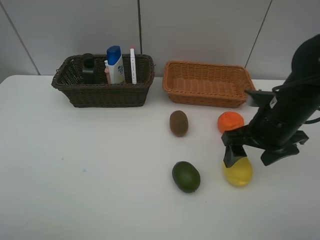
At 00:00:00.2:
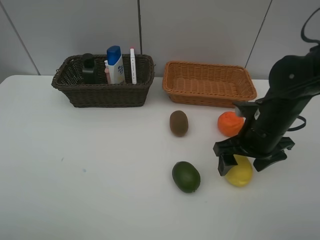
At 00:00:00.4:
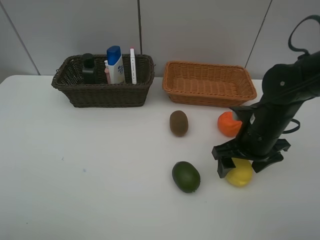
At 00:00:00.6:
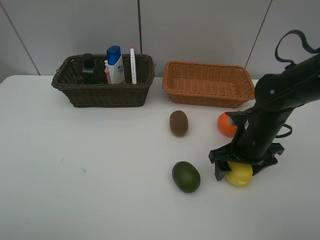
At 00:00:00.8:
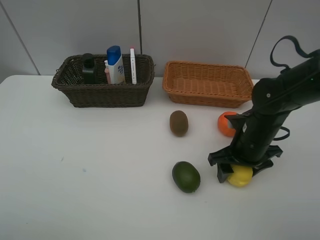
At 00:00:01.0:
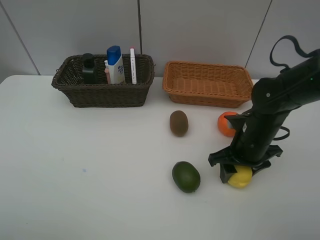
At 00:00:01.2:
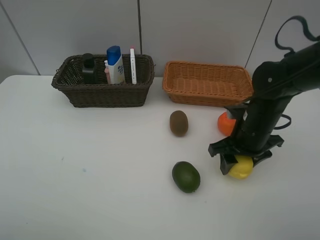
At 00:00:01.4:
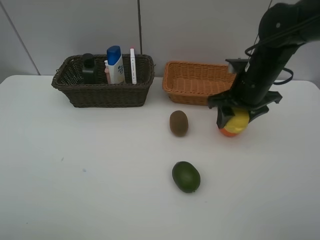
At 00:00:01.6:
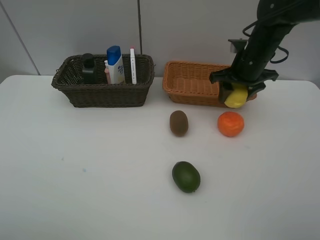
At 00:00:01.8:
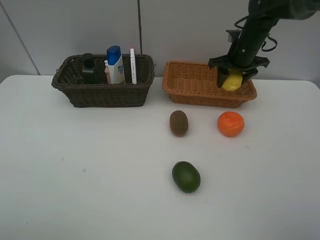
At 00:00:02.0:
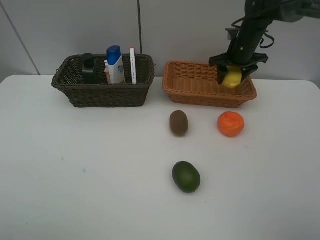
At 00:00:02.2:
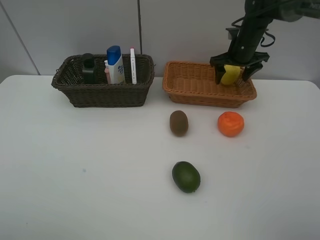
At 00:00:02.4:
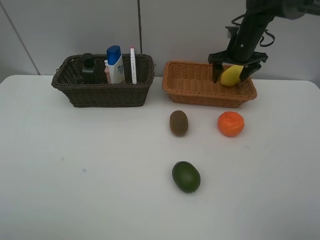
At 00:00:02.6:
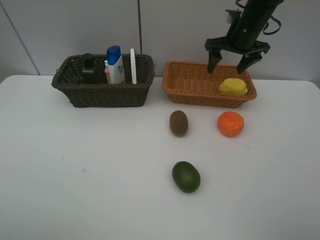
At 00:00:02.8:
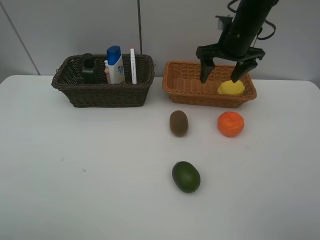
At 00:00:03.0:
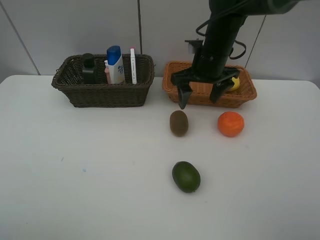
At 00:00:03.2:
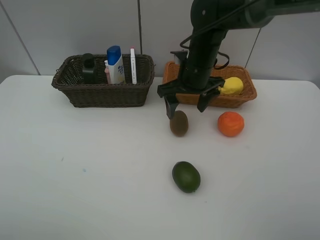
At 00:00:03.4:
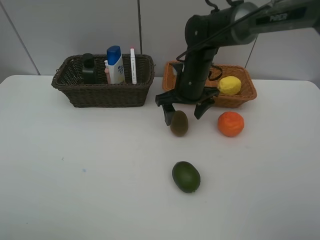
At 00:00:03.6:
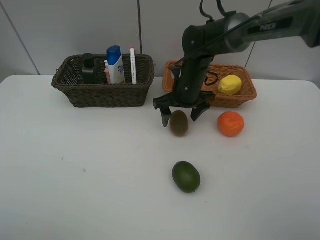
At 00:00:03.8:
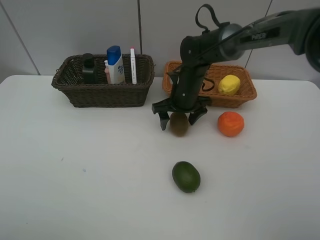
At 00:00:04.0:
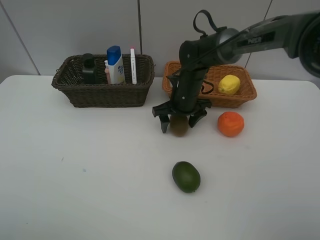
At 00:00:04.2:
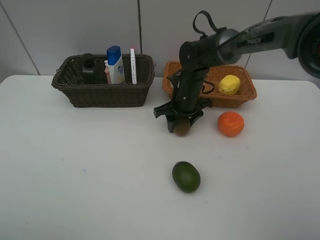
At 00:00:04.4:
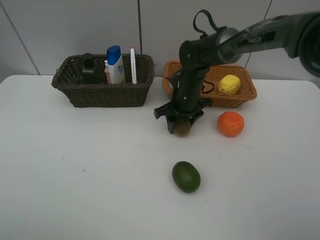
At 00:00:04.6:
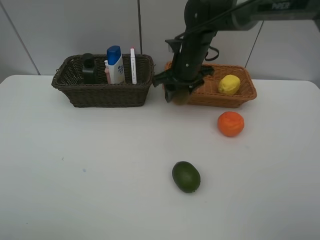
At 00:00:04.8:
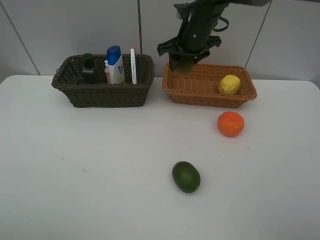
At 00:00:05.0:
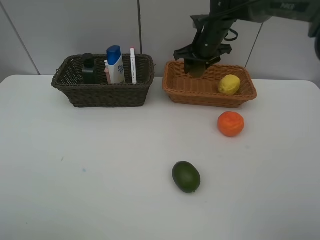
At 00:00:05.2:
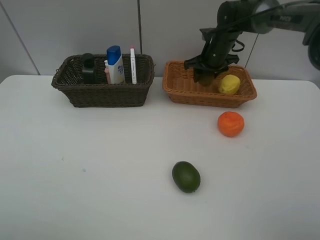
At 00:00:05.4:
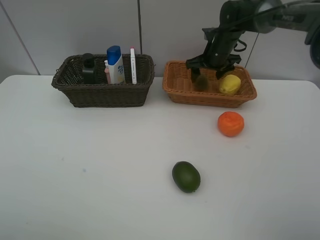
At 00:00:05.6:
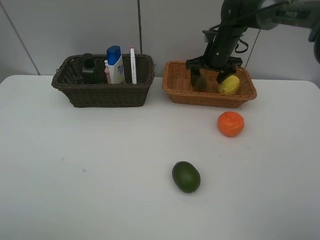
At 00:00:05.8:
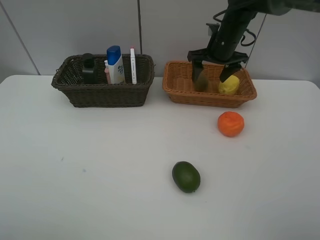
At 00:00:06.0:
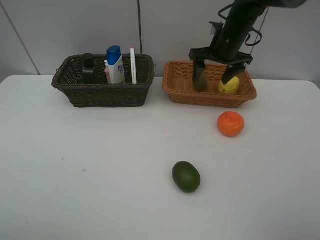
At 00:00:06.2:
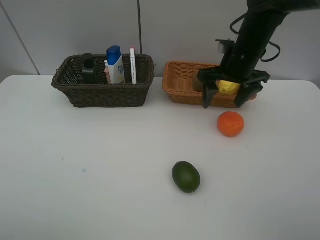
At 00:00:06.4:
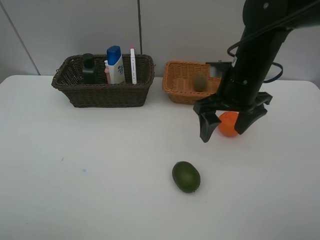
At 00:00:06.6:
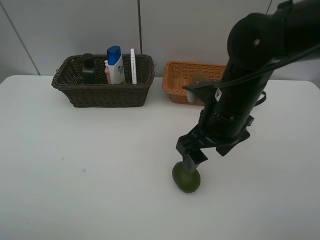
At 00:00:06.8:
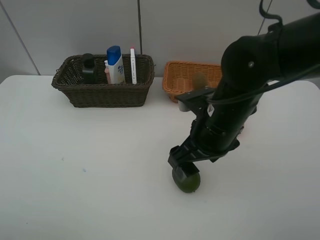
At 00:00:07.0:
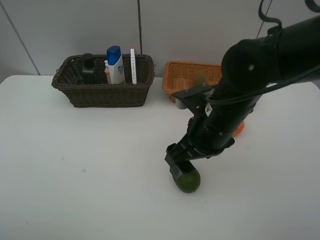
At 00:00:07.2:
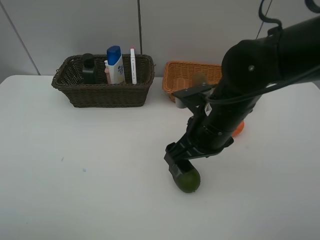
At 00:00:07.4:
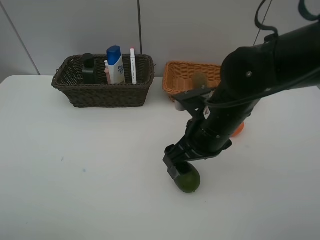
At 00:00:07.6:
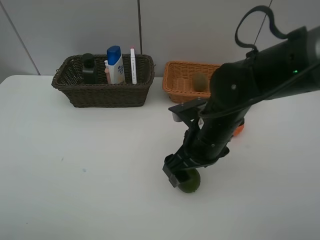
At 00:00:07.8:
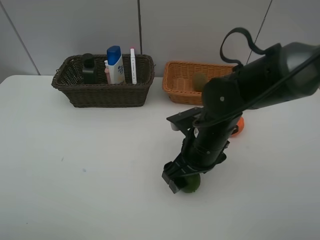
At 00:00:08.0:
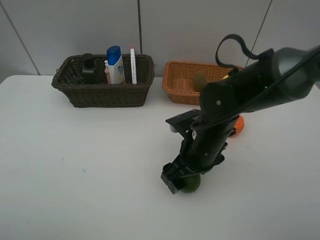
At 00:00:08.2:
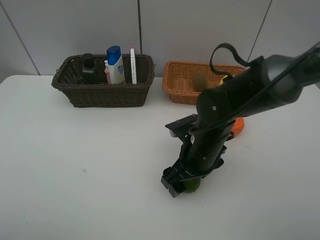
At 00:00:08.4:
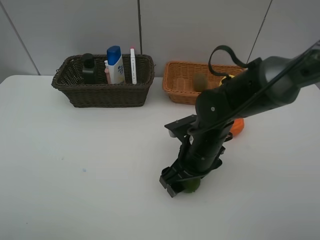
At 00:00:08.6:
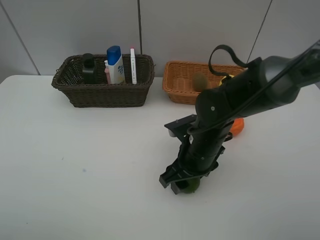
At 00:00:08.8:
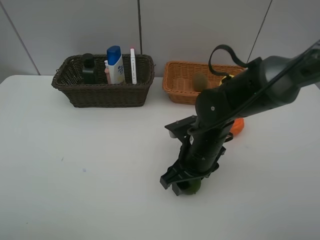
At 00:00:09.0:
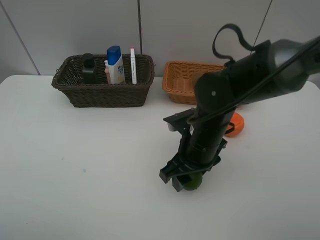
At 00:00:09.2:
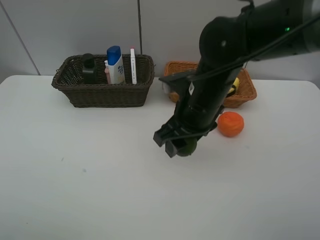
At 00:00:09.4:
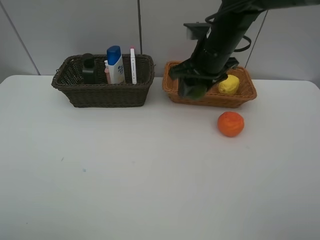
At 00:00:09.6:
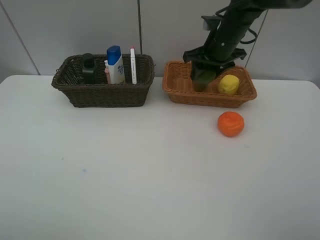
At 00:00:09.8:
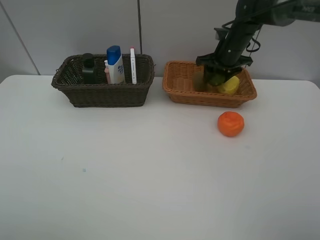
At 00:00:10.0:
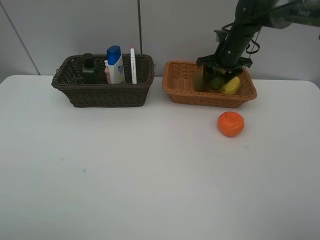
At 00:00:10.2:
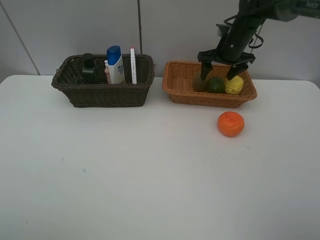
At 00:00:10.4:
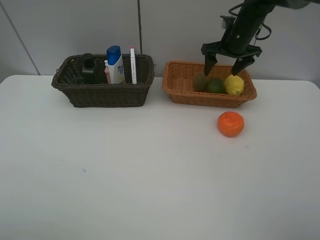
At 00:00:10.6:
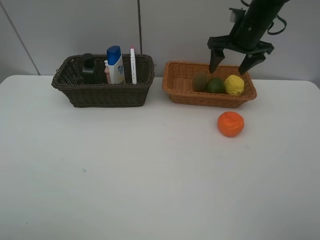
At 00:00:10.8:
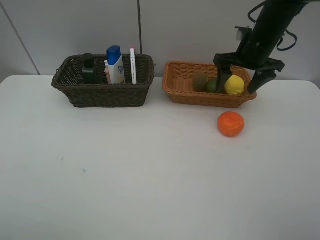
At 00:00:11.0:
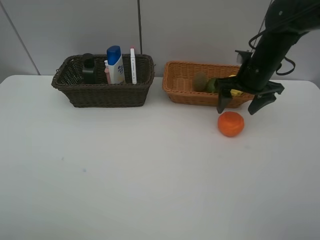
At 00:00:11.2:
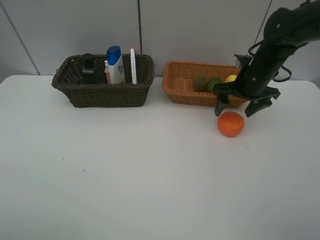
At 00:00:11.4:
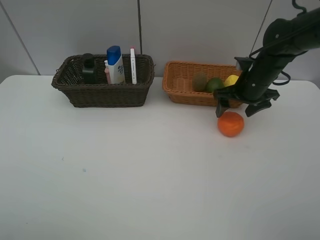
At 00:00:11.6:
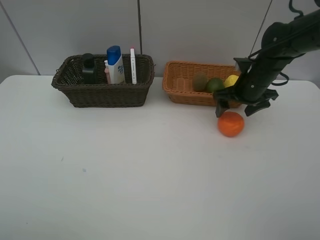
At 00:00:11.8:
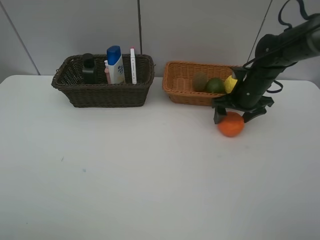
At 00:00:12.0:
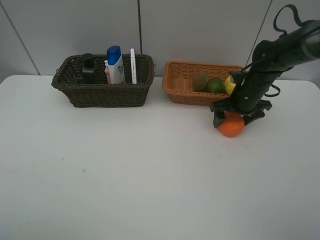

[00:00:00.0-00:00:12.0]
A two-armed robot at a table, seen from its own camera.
Task of the whole recording: Place multiple objects separately in different baskets.
Step, 00:00:01.4 to 00:00:02.4: Place the lemon in the light basket with right gripper.
Step, 00:00:02.6 to 00:00:04.4: Pick up kiwi with right gripper.
Step, 00:00:04.6 to 00:00:05.4: Place the kiwi in the light basket with right gripper.
Step, 00:00:05.6 to 00:00:09.0: Pick up the lime with right gripper.
Step, 00:00:09.2 to 00:00:10.2: Place the lime in the light basket with right gripper.
00:00:00.0 to 00:00:01.6: The right gripper travels forward by some 15 cm, and closes.
00:00:01.6 to 00:00:03.0: The right gripper shifts some 10 cm to the left, travels forward and back again, approximately 10 cm each way, and opens up.
00:00:03.0 to 00:00:04.4: The right gripper moves downward, roughly 10 cm, and closes.
00:00:04.4 to 00:00:06.0: The right gripper goes up and down, approximately 15 cm each way, reversing 2 times, and opens.
00:00:06.0 to 00:00:07.6: The right gripper goes about 20 cm backward.
00:00:07.6 to 00:00:09.0: The right gripper closes.
00:00:09.0 to 00:00:10.4: The right gripper moves forward and to the right, roughly 25 cm, and opens up.
00:00:10.4 to 00:00:12.0: The right gripper moves downward and backward, approximately 15 cm.

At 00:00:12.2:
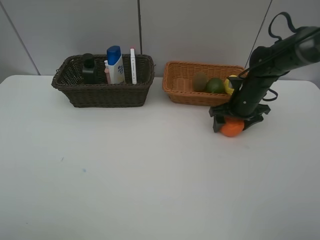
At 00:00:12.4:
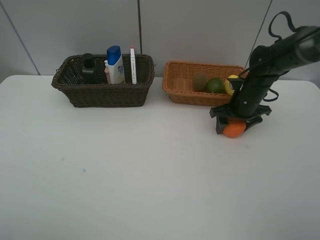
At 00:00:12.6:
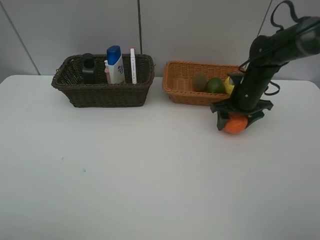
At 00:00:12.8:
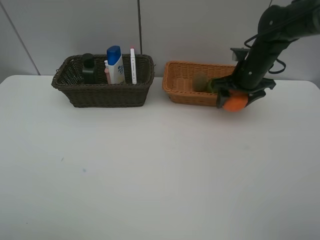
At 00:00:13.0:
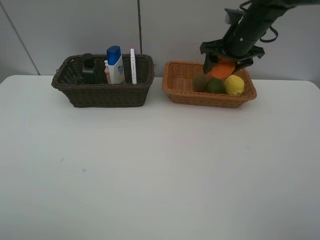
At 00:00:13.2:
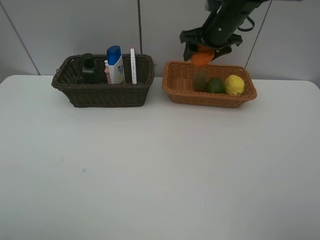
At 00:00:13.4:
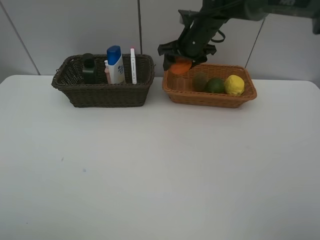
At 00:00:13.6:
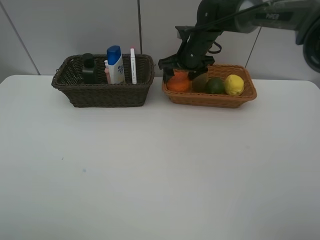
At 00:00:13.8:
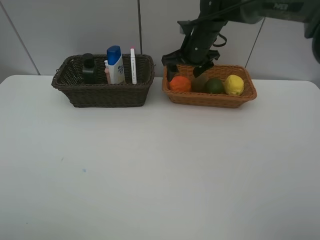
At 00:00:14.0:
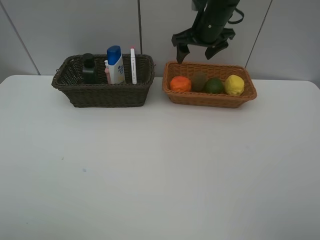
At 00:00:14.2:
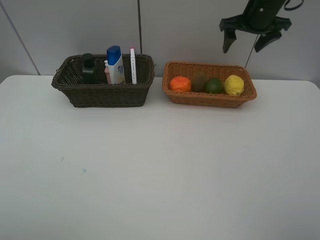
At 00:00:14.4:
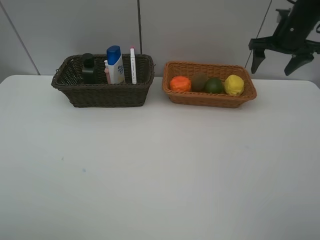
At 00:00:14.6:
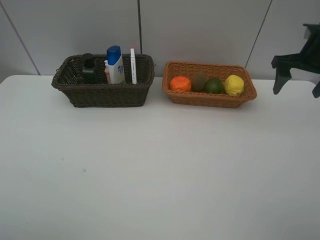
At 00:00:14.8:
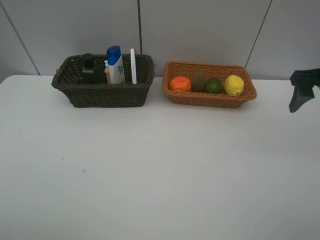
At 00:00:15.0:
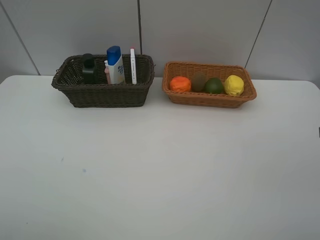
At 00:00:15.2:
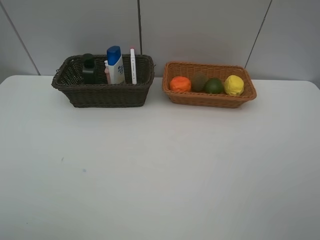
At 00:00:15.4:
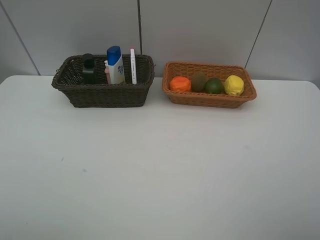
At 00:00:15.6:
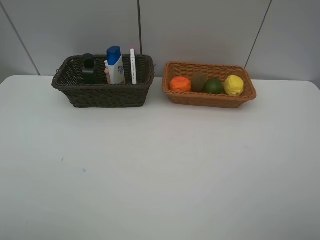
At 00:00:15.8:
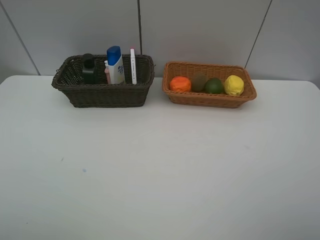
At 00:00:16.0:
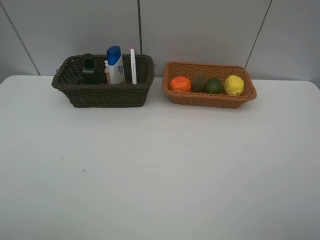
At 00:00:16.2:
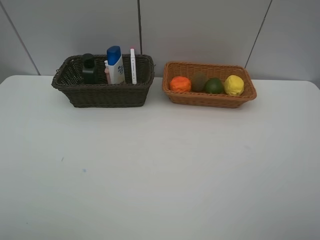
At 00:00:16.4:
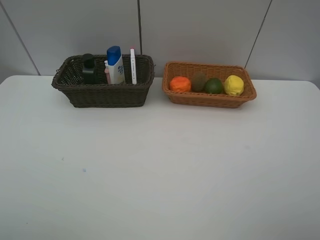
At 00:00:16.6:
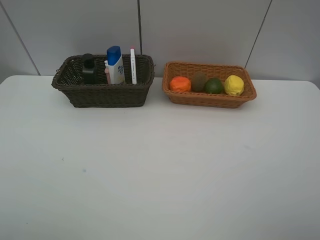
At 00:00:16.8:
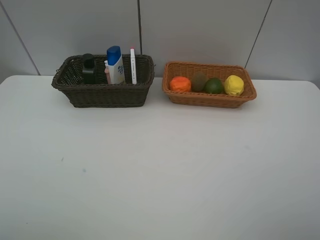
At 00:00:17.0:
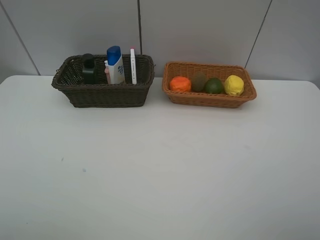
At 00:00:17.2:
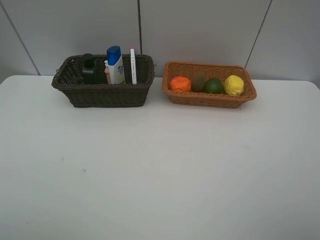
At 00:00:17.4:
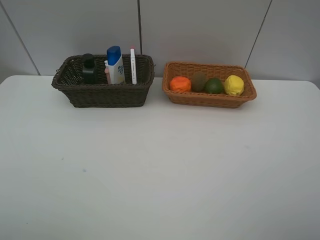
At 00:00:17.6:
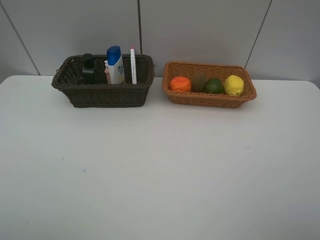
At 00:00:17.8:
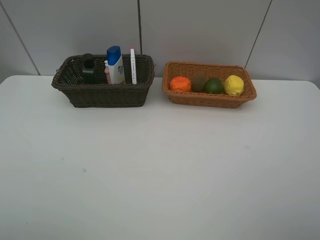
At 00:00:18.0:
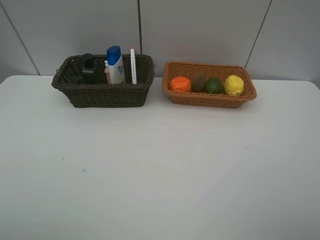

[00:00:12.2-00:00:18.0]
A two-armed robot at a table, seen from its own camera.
Task of the whole recording: Place multiple objects separately in different baskets.
Step, 00:00:12.8 to 00:00:13.8: Place the orange in the light basket with right gripper.
00:00:12.2 to 00:00:13.6: The right gripper goes about 15 cm to the left, forward and upward, and closes and opens again.
00:00:13.6 to 00:00:15.0: The right gripper is displaced backward and to the right by some 40 cm.
00:00:16.6 to 00:00:18.0: The two grippers keep their place.
